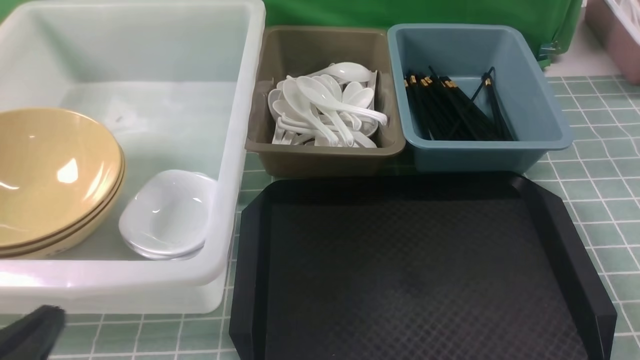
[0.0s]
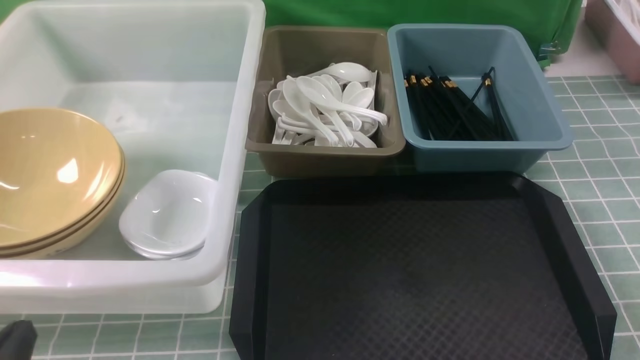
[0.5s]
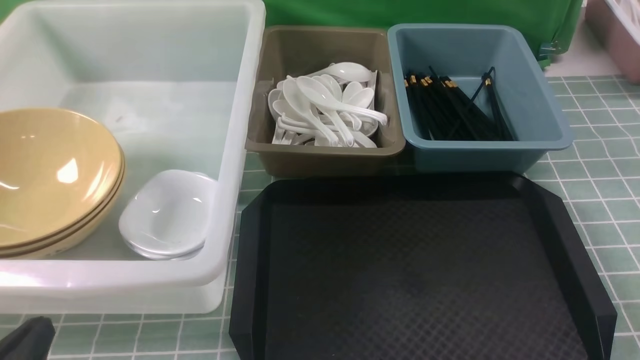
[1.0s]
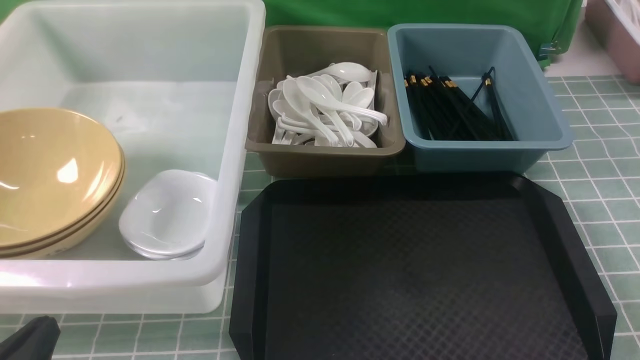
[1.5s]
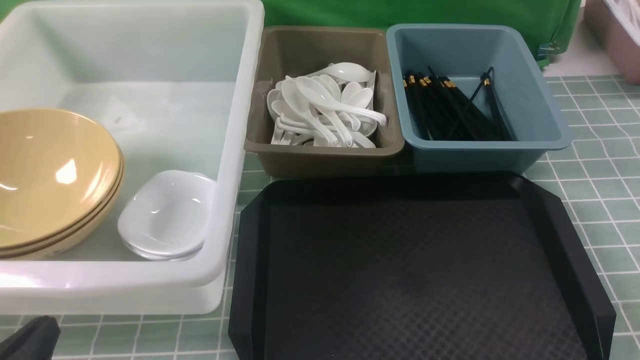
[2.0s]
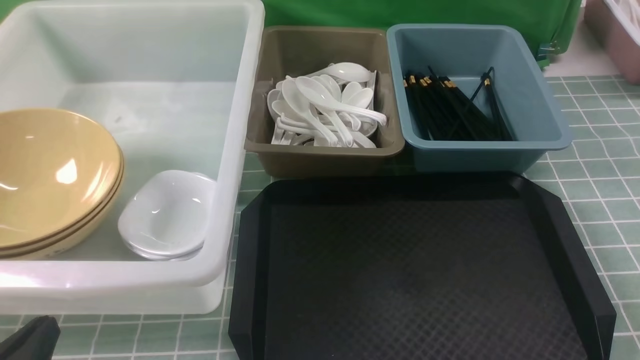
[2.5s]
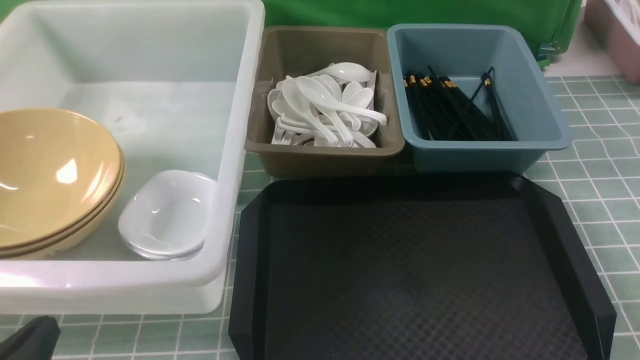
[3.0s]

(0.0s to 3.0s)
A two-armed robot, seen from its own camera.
Task of the whole recording: on blue table put chopsticks spoon bowls plates into blue grey white boxes.
1.5s - 3.0s: Both grippers stay about where they are.
